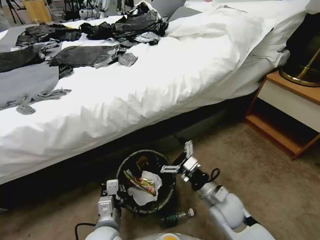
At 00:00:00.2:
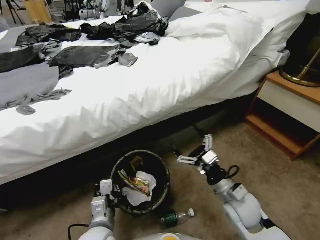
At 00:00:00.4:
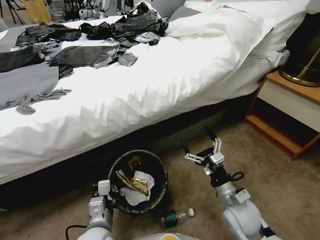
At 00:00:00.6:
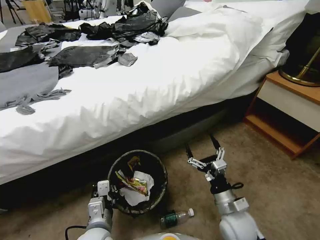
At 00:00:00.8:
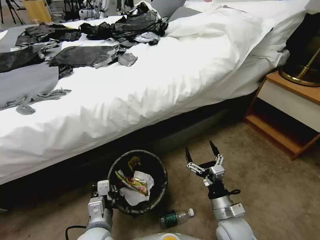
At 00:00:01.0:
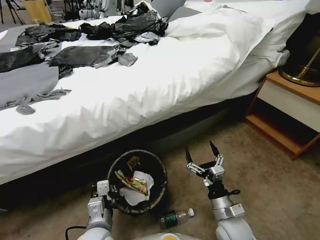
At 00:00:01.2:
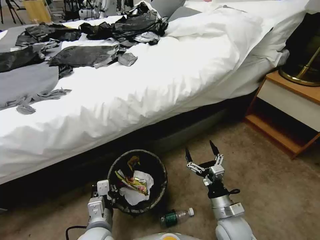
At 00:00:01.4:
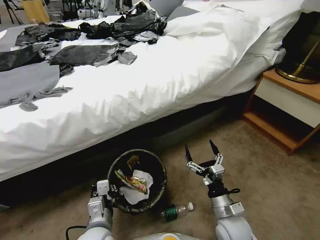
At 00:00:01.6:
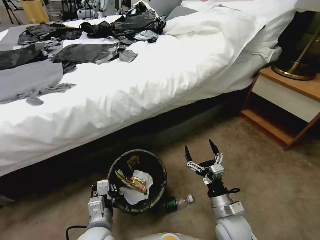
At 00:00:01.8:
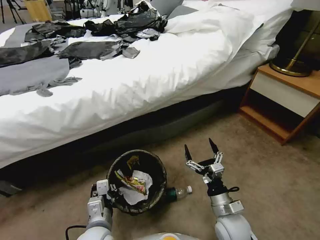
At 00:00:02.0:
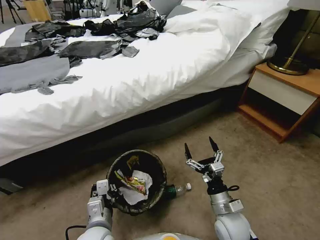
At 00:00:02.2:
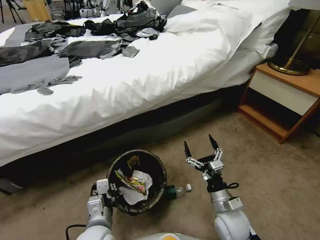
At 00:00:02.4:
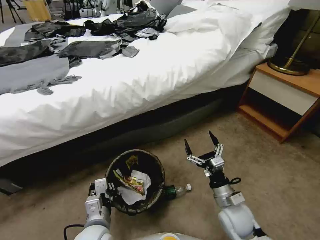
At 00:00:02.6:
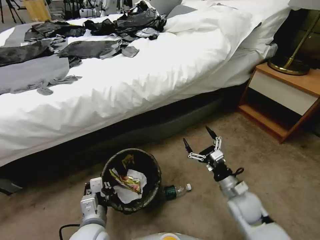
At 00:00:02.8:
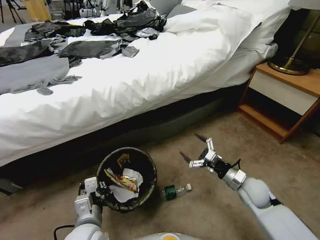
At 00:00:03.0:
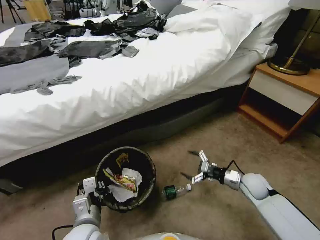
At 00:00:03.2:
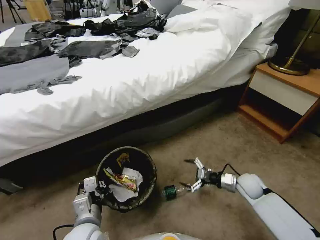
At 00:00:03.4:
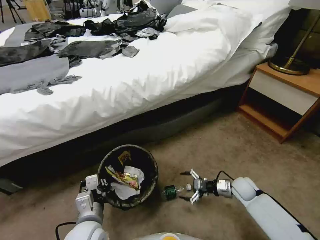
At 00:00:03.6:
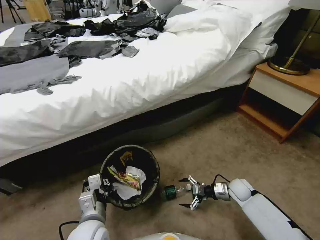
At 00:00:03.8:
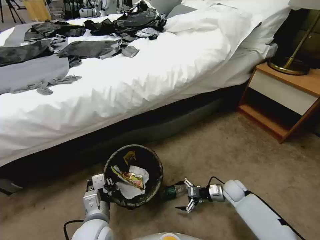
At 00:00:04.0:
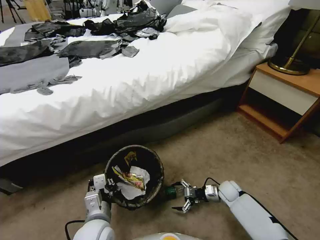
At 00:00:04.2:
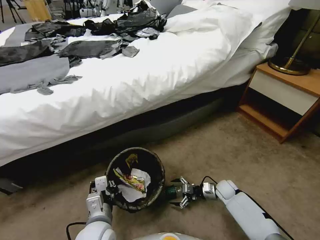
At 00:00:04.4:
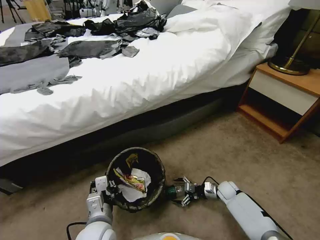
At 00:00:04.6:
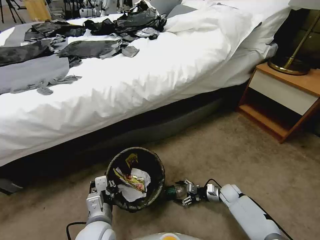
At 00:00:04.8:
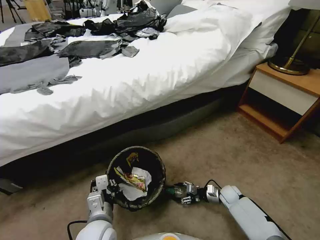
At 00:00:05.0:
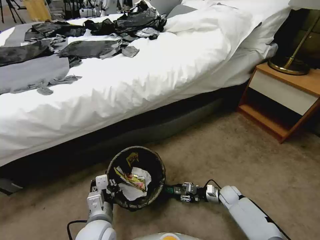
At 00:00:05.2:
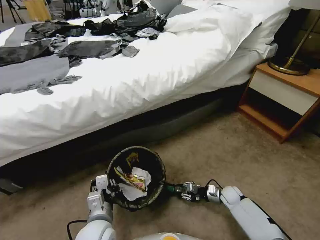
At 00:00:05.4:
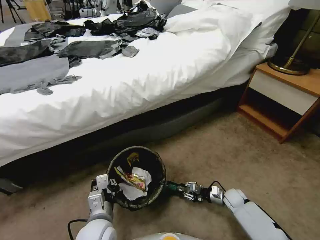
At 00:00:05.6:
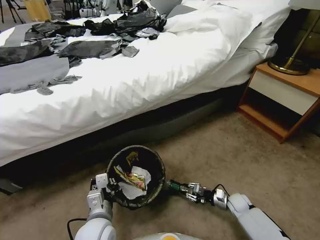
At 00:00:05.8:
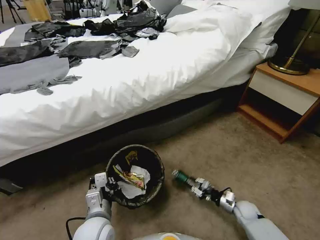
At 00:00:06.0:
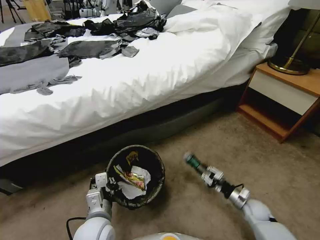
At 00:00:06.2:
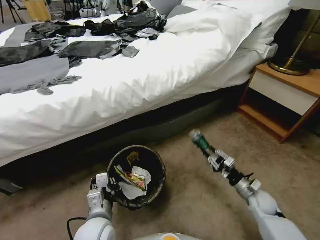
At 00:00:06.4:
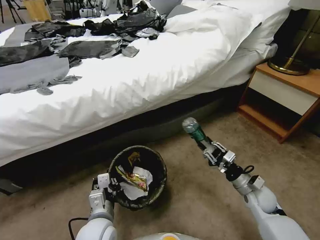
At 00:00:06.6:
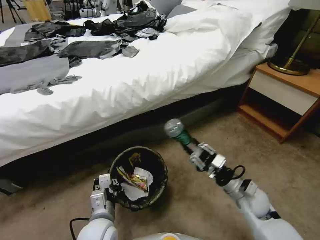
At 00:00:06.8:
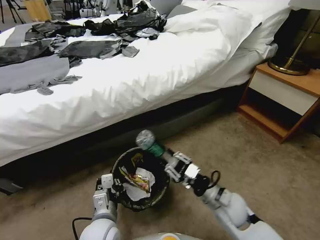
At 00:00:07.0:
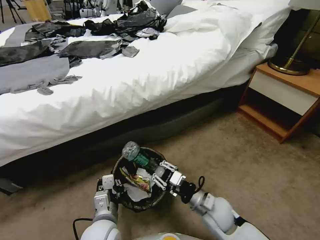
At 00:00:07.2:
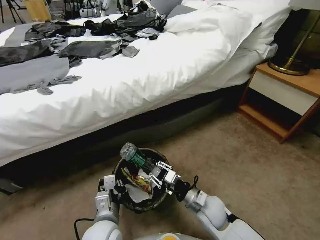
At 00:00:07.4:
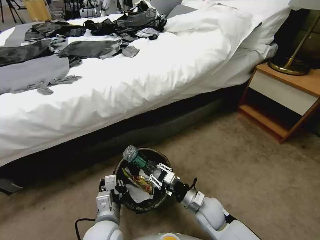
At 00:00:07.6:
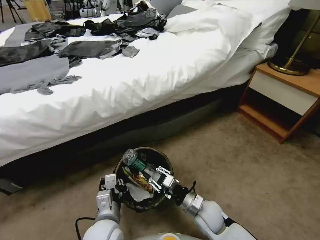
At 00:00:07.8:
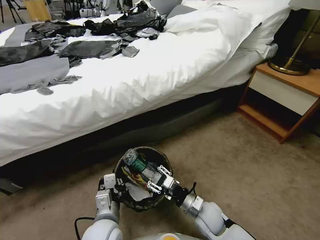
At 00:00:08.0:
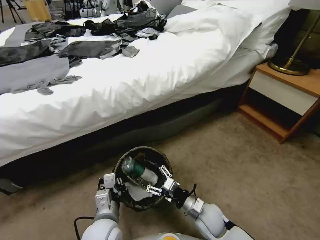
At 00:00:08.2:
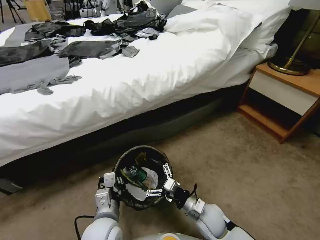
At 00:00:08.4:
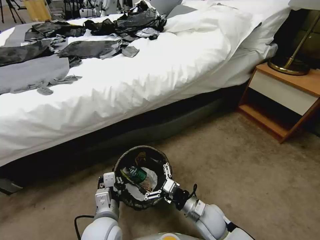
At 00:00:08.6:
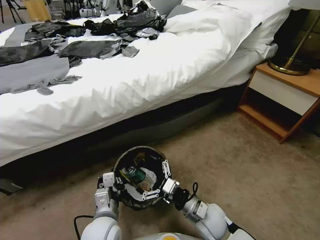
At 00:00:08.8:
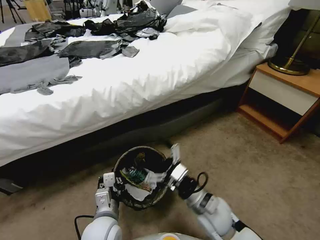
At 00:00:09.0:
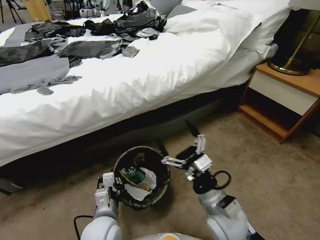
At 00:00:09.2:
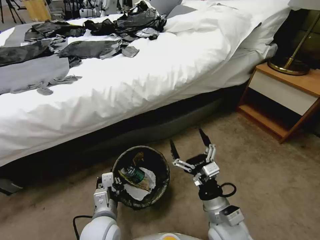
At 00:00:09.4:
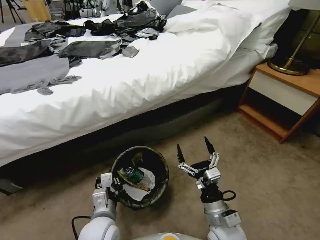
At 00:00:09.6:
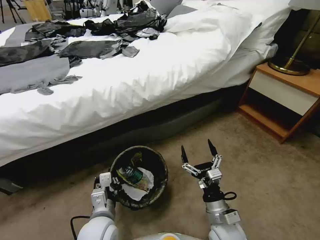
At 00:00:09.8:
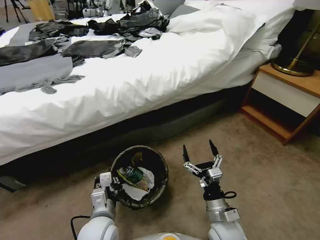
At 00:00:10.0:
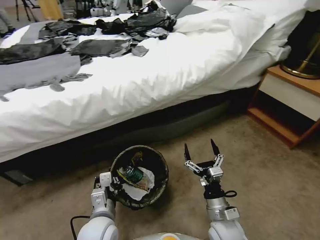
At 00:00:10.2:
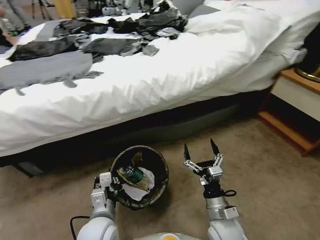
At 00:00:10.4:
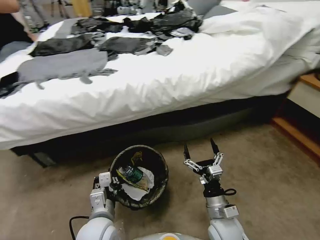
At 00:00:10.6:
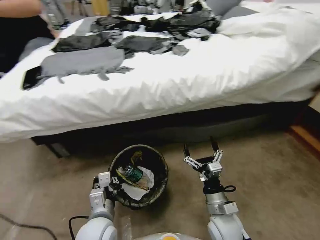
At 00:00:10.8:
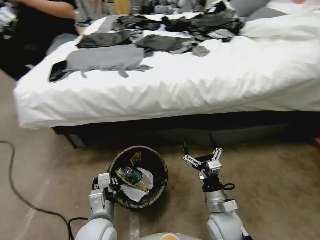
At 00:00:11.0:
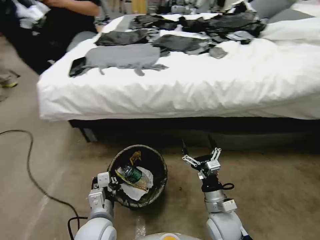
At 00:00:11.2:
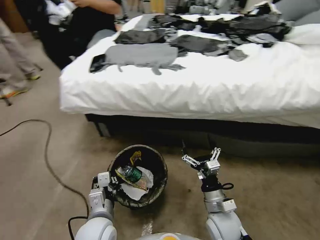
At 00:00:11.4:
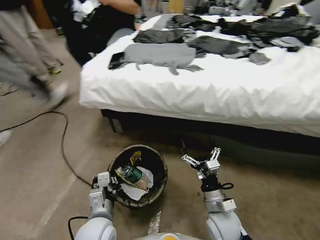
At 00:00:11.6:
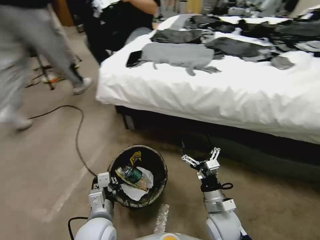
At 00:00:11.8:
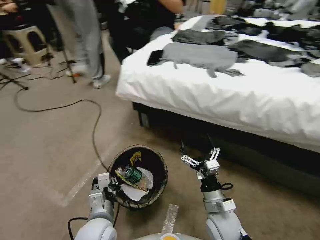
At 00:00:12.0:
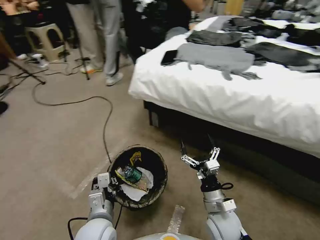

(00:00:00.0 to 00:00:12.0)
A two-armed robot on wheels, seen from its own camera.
Task of the whole recording: Pick up the trash bin, then pick up the garbage from the floor and place it into the trash bin.
00:00:00.0 - 00:00:01.6: The right gripper ends up roughly 5 cm from where it was.
00:00:01.6 - 00:00:03.0: The right gripper is displaced forward and to the right by some 20 cm.
00:00:03.0 - 00:00:04.4: The right gripper travels downward by about 15 cm.
00:00:04.4 - 00:00:06.0: The right gripper goes about 10 cm backward and to the right, and closes.
00:00:06.0 - 00:00:07.6: The right gripper goes some 25 cm to the left and upward.
00:00:07.6 - 00:00:09.0: The right gripper goes about 15 cm upward, and opens up.
00:00:09.0 - 00:00:10.4: The right gripper travels downward by some 10 cm.

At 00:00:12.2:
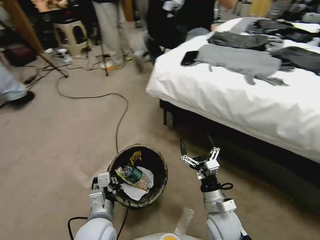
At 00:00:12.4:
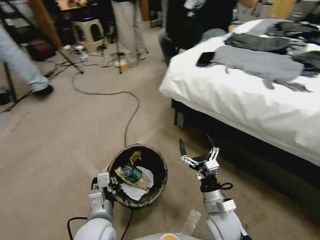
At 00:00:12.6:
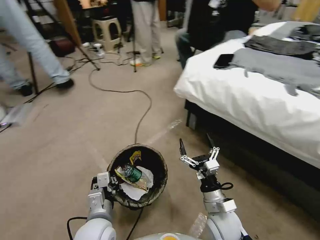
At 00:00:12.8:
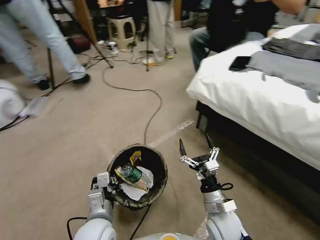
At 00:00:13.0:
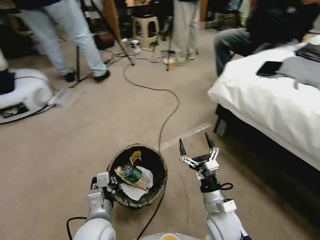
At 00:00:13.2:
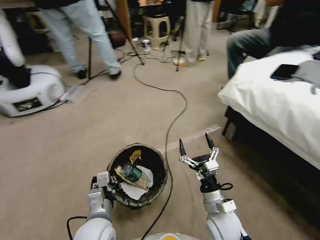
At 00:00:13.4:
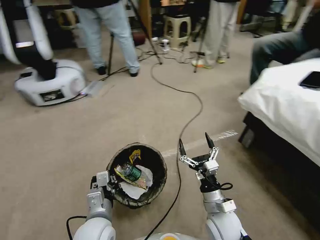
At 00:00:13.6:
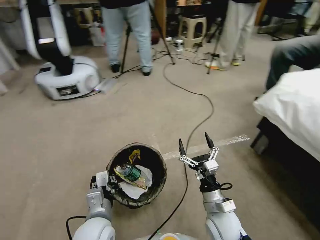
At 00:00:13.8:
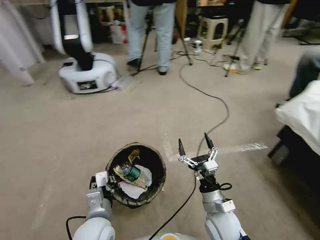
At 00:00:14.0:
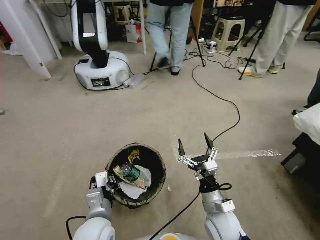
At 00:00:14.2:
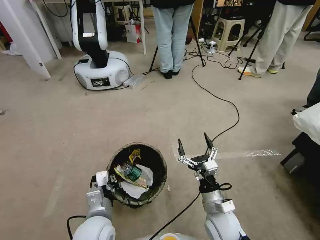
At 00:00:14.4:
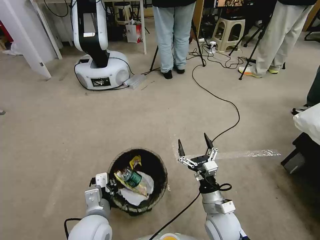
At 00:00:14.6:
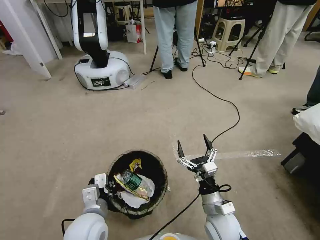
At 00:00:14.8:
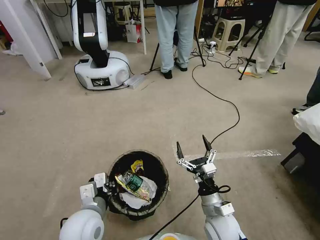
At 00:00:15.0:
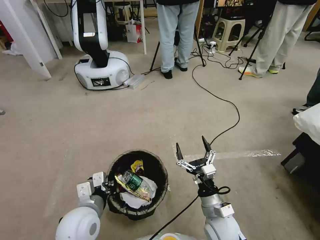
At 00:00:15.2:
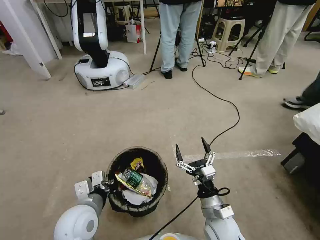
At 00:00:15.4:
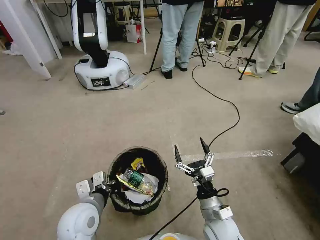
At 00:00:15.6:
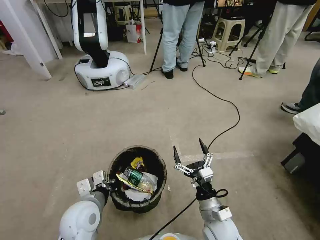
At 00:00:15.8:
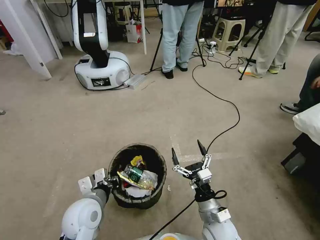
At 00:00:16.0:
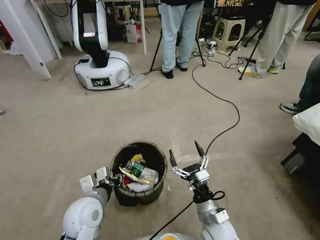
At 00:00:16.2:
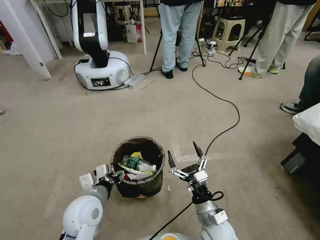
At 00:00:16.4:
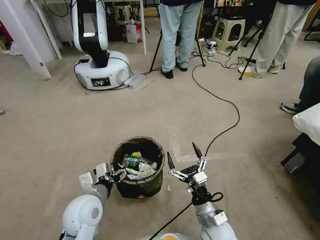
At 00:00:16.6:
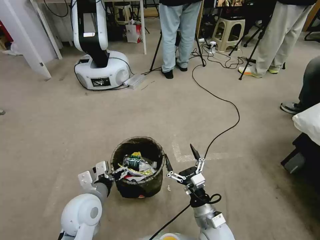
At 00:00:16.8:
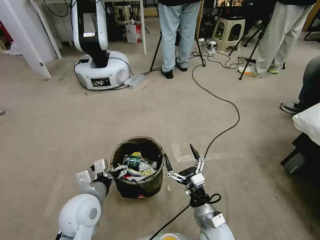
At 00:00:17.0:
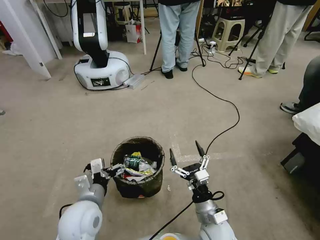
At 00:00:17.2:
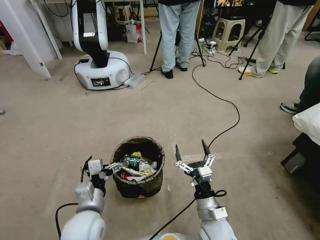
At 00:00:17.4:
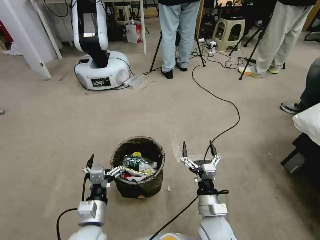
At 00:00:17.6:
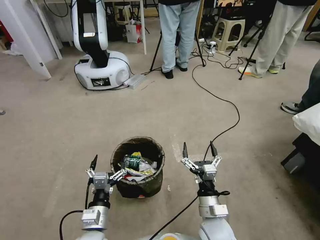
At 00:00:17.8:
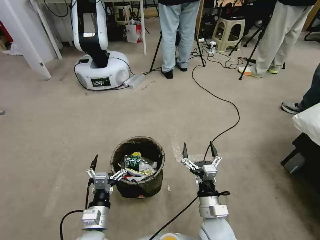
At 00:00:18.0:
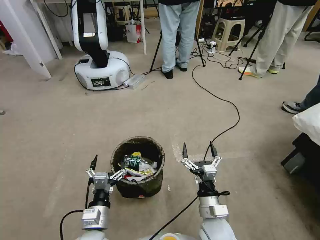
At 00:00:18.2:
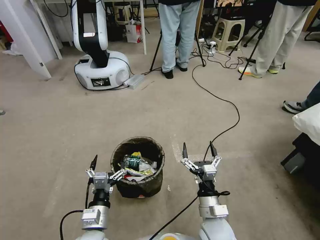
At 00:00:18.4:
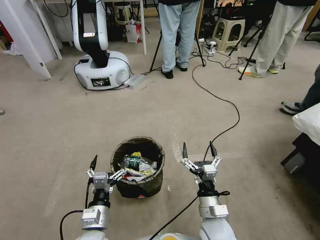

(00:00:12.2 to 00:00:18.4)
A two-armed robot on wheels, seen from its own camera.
Task of the whole recording: Pick up the trash bin, then pick up the garbage from the floor and place it into the trash bin.
00:00:13.8 - 00:00:15.4: The left gripper ends up roughly 5 cm from where it was.
00:00:15.4 - 00:00:16.8: The left gripper opens its fingers.
00:00:16.8 - 00:00:18.4: The left gripper shifts approximately 10 cm downward and backward.
